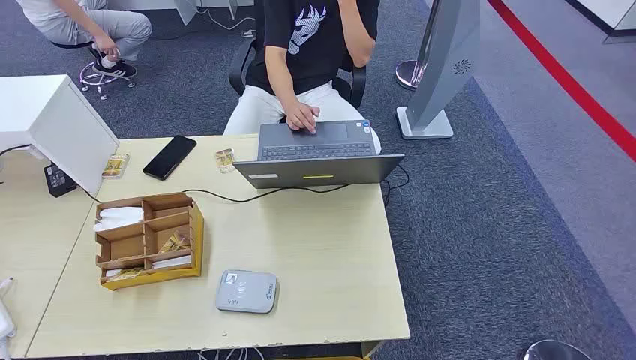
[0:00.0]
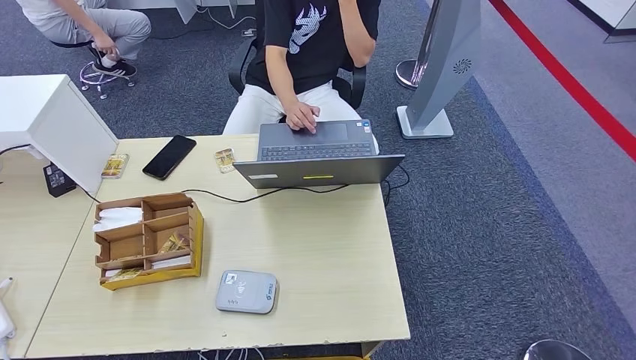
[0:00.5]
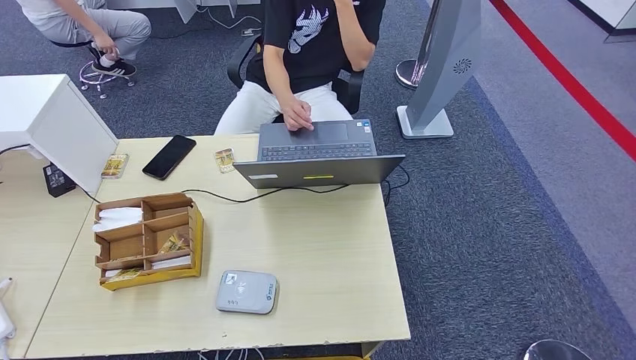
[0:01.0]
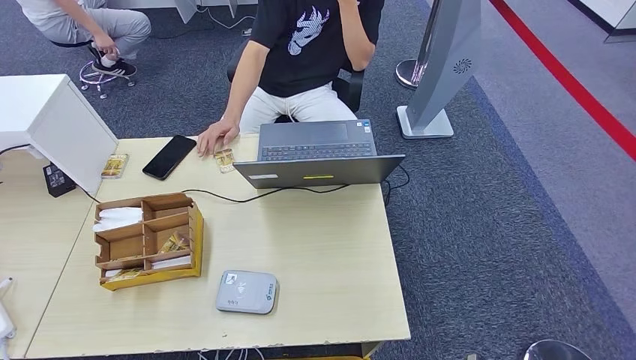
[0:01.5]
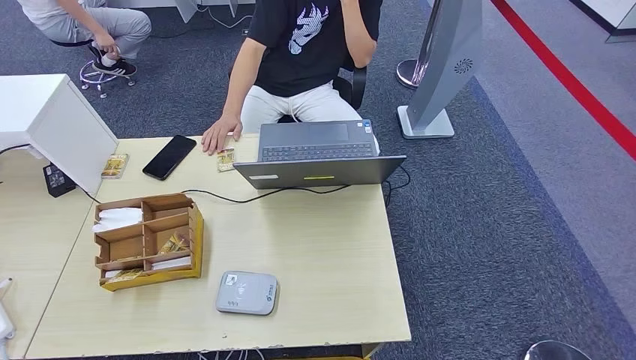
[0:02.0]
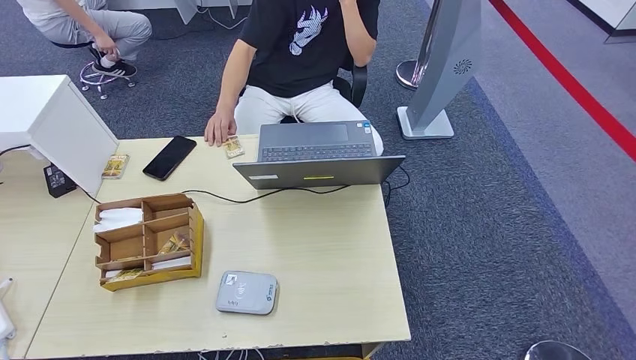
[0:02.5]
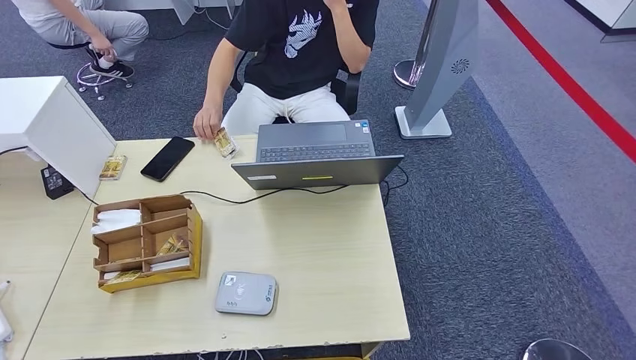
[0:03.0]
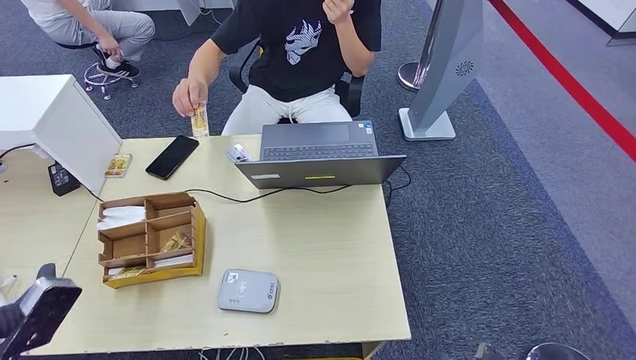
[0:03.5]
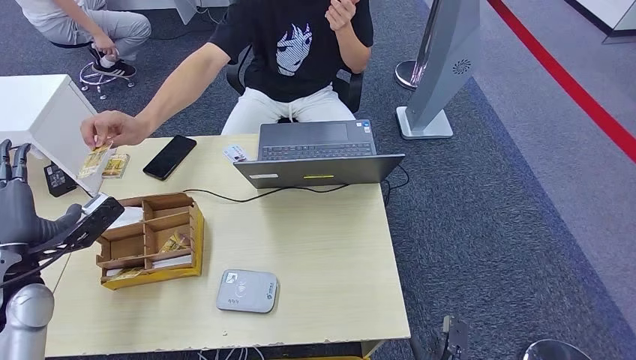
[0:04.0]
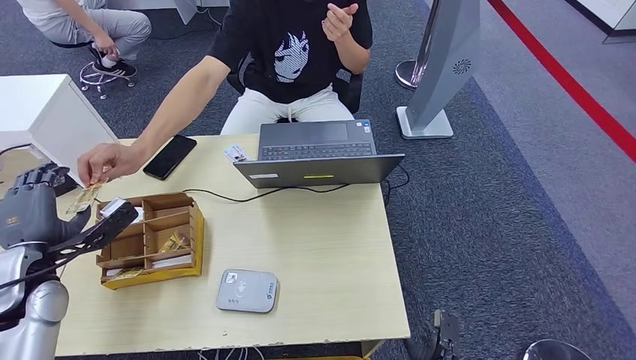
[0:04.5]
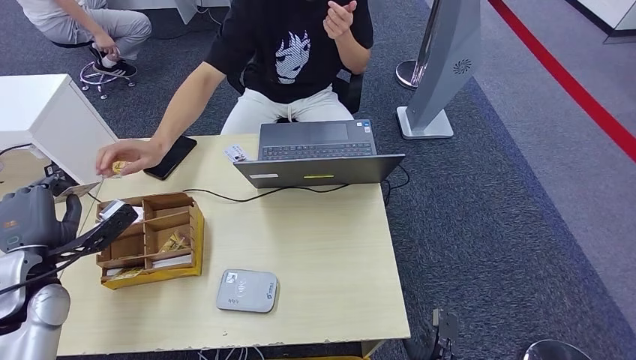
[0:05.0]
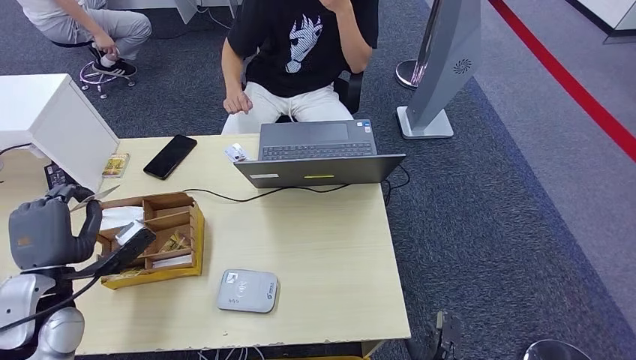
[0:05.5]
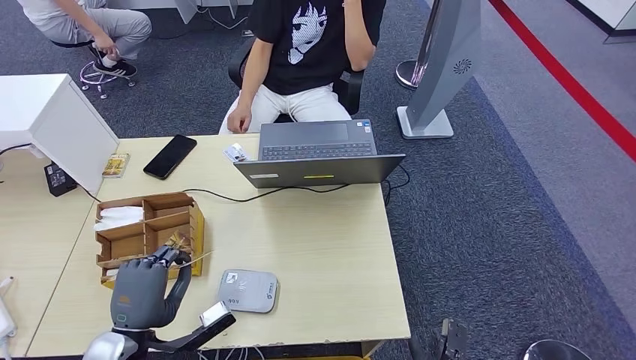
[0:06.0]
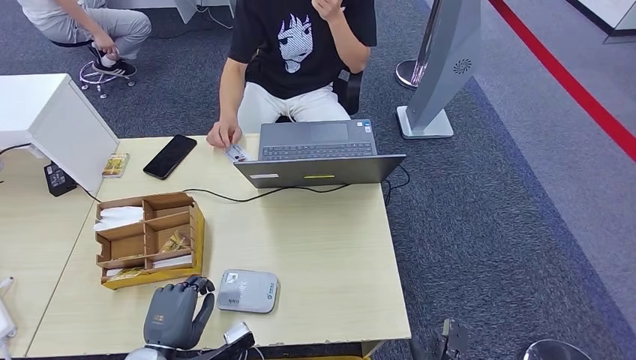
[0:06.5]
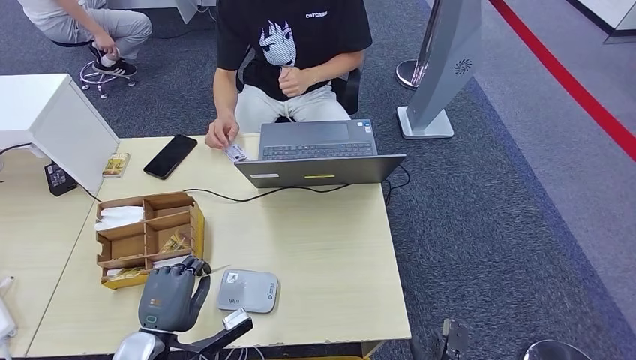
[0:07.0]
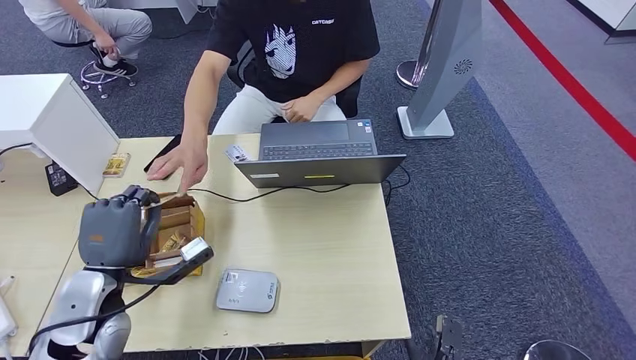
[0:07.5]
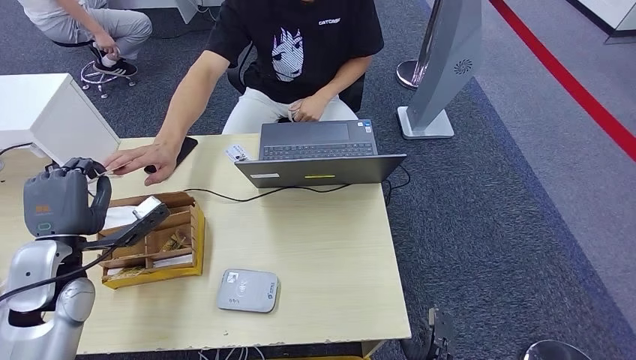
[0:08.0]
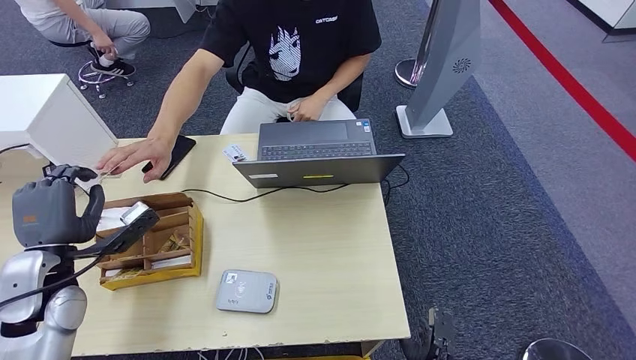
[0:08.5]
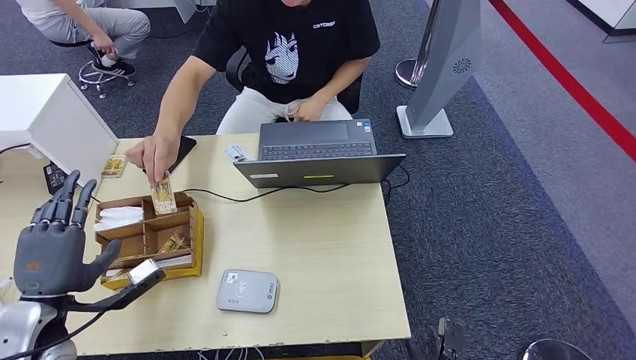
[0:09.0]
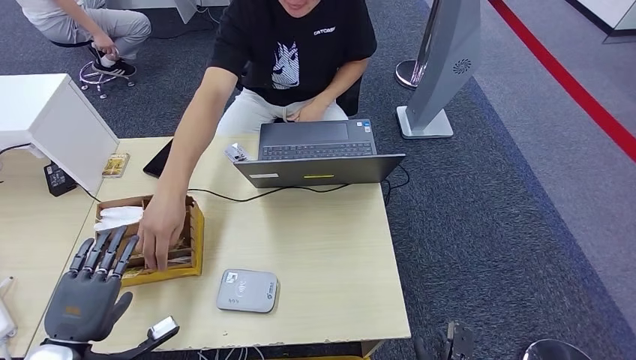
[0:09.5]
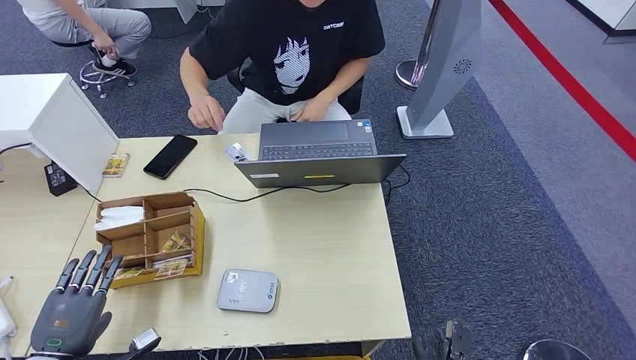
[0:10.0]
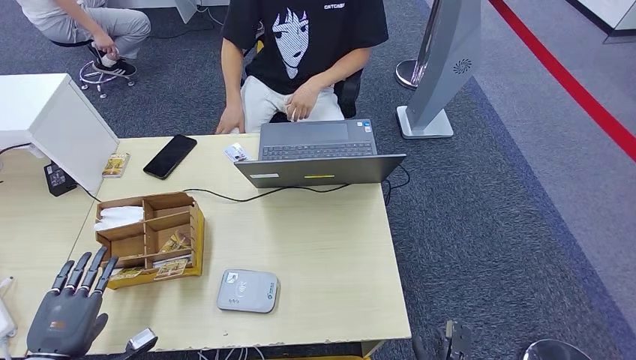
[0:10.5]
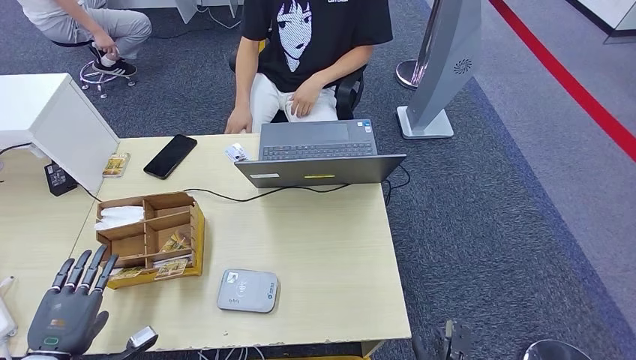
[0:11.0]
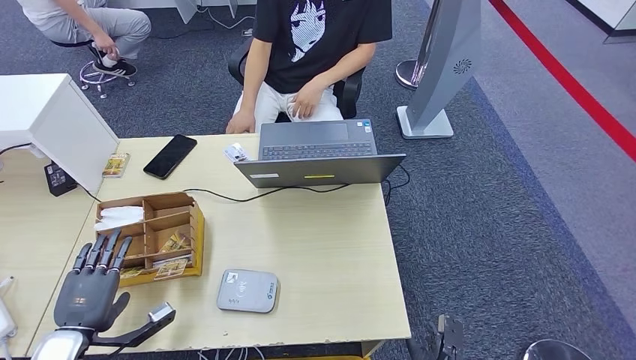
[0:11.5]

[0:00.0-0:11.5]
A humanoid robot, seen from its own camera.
Step, 0:00.0 to 0:04.5: Take the ID card from the person's hand.
Step, 0:05.0 to 0:07.0: Place the ID card on the card reader.
Step, 0:07.5 to 0:08.0: Hand the ID card to the person.
0:02.0 to 0:04.0: The left hand moves forward and upward, roughly 35 cm. The right hand is displaced forward by about 10 cm.
0:04.0 to 0:06.0: The left hand heads to the right, backward and downward, covering some 20 cm.
0:06.0 to 0:07.5: The left hand is displaced forward and upward by about 10 cm.
0:07.5 to 0:09.5: The left hand travels backward, to the left and downward by approximately 15 cm.
0:09.5 to 0:11.5: The left hand changes place by roughly 5 cm.

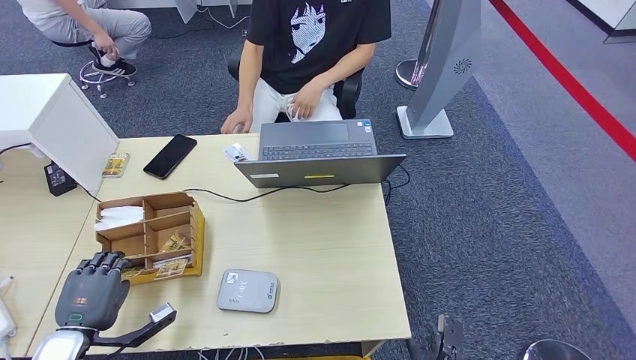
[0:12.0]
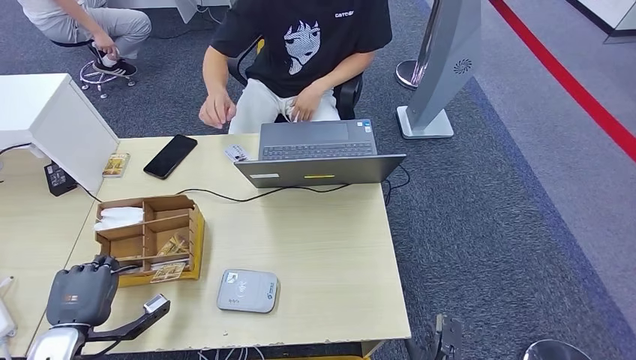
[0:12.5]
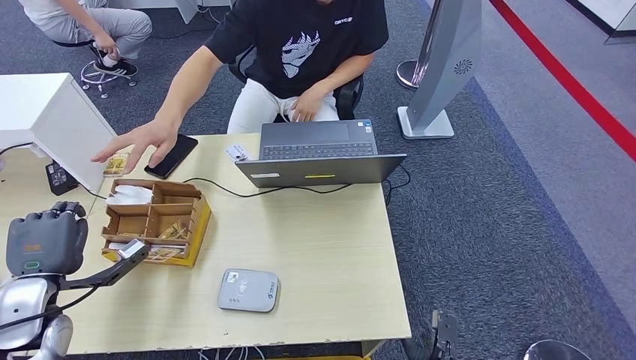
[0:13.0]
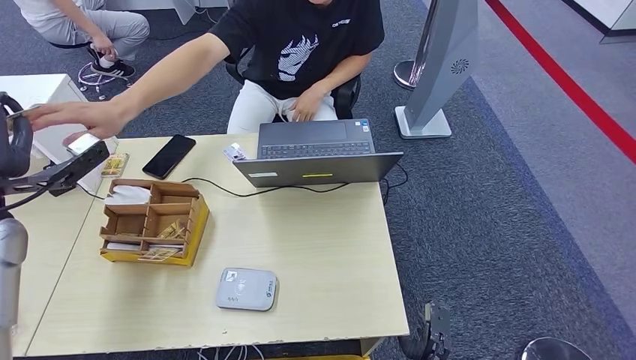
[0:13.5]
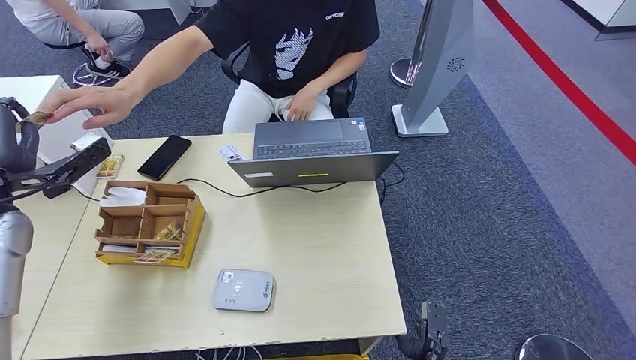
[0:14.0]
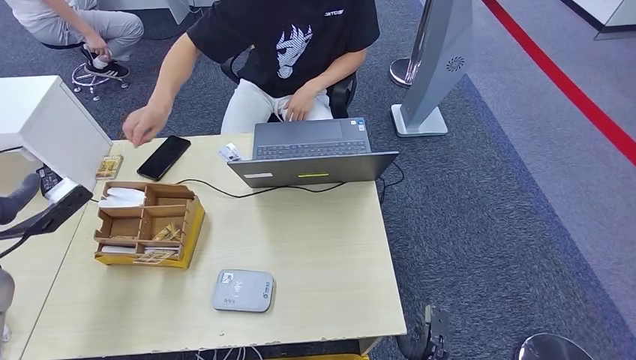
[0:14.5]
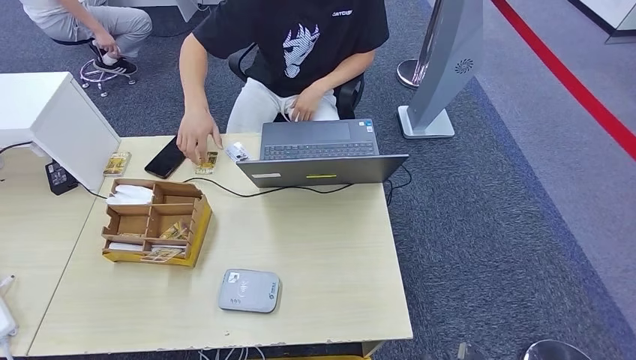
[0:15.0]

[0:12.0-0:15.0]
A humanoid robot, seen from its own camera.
Step, 0:14.0 to 0:15.0: Hand the room key to the person.
0:13.5 to 0:15.0: The left hand moves backward and downward, roughly 30 cm. Meanwhile the right hand travels backward by approximately 5 cm.
